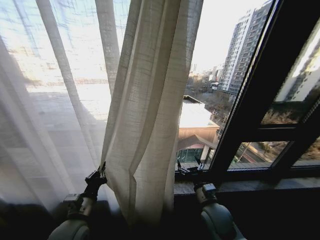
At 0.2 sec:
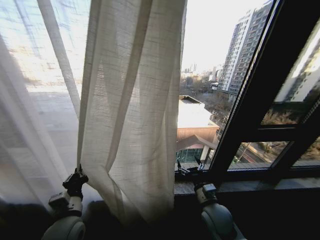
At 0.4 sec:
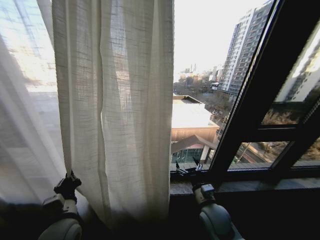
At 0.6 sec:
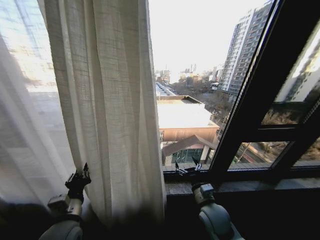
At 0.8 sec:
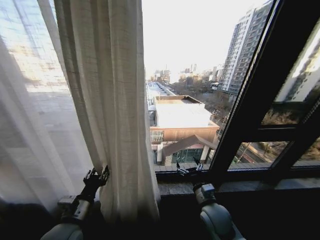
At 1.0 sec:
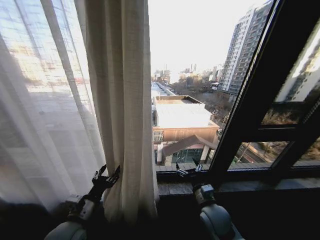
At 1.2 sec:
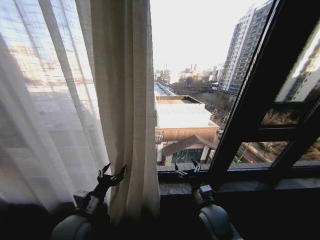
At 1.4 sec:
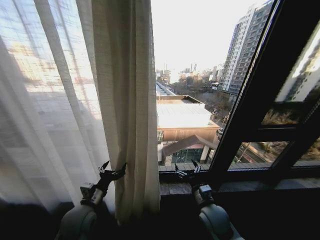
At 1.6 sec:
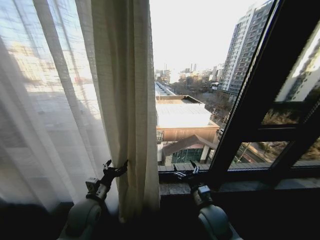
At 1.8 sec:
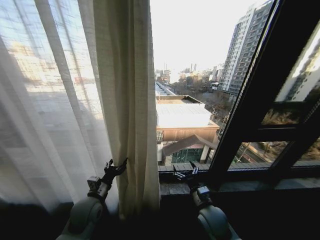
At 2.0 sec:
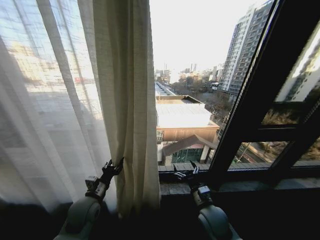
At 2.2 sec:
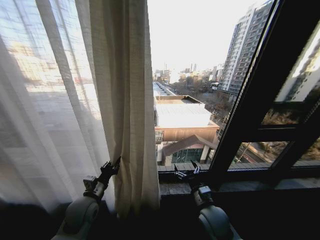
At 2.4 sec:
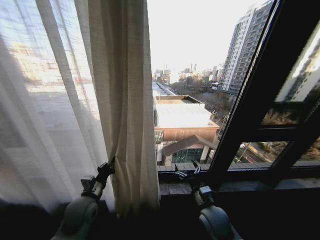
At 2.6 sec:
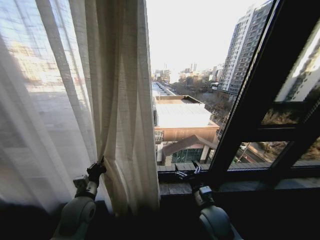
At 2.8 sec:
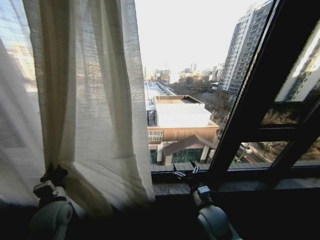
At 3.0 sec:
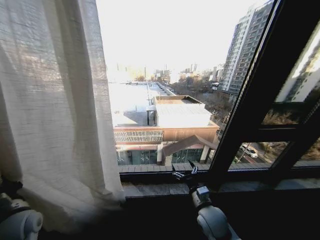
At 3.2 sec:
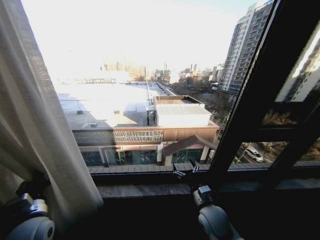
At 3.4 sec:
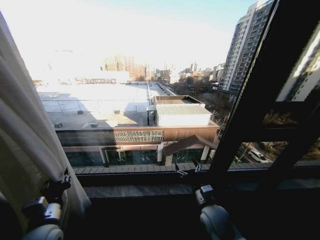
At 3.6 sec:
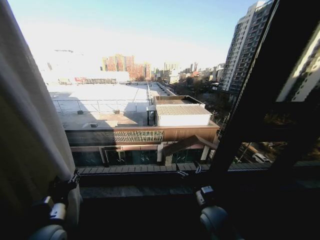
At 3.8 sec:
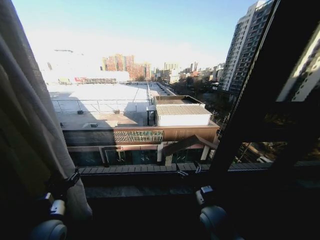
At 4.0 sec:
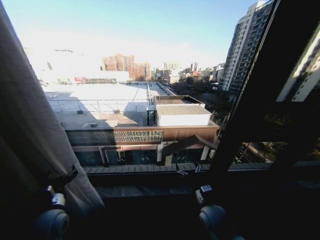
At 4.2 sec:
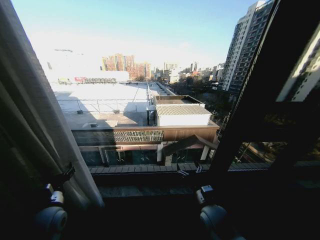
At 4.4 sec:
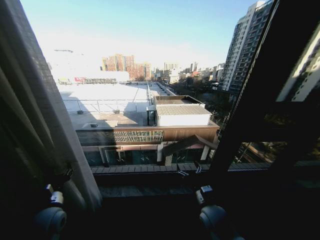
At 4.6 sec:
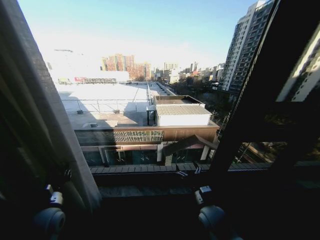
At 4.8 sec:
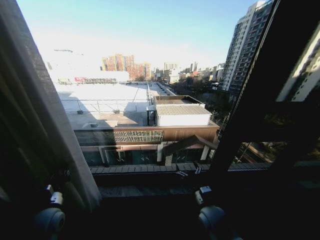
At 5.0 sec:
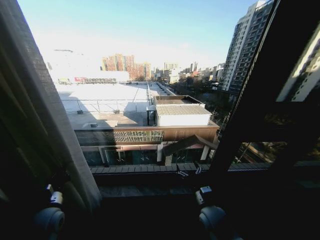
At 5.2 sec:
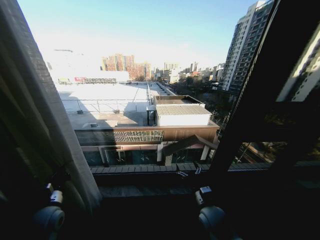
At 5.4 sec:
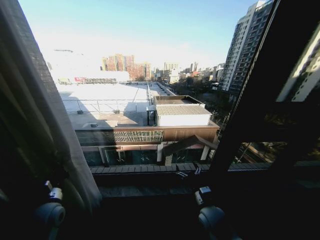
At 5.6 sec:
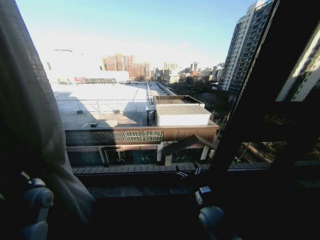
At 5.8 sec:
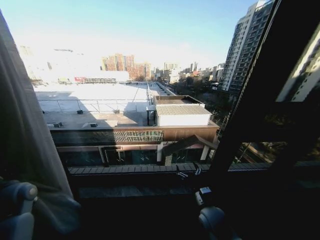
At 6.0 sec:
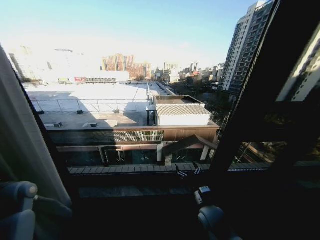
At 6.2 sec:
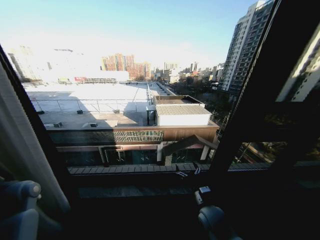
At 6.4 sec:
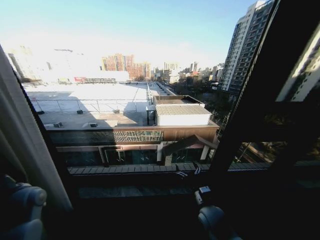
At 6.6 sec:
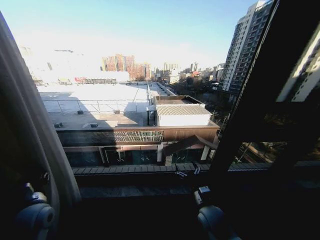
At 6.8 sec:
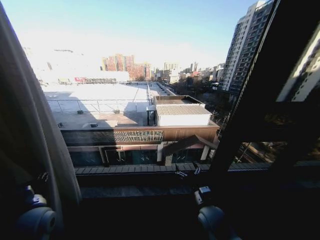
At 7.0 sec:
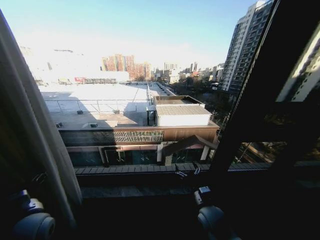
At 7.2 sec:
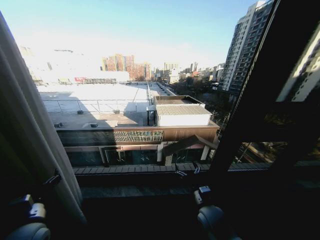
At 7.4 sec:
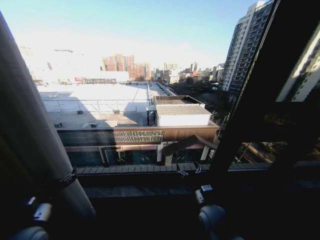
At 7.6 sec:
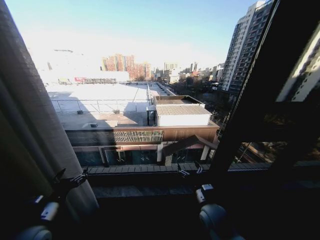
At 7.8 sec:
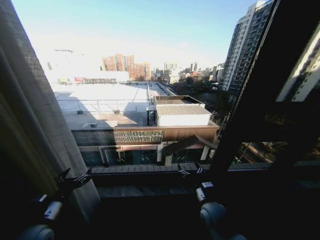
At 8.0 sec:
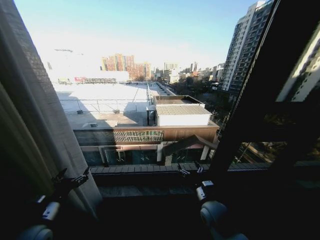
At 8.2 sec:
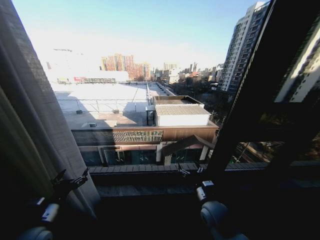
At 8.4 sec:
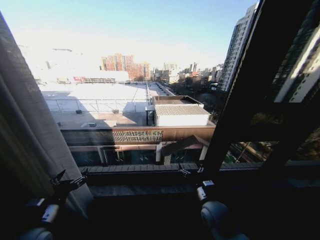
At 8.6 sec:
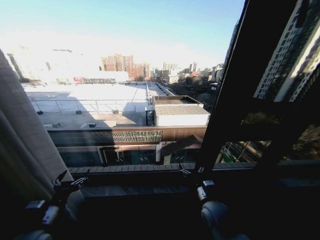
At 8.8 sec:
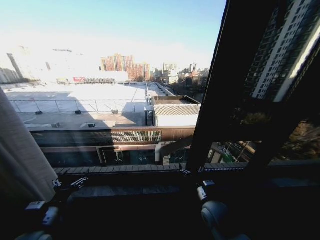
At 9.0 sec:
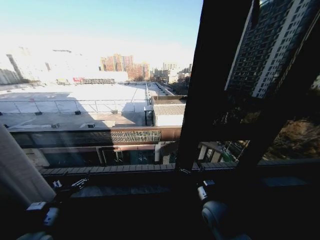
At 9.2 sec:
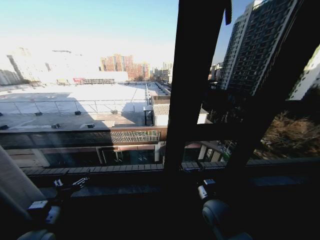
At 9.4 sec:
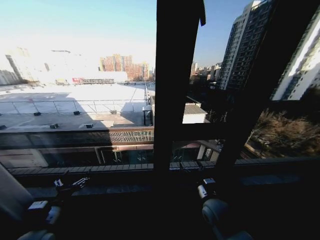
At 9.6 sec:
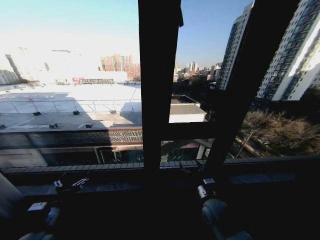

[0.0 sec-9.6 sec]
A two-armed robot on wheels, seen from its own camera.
Task of the whole recording: Open the curtains by pulling them apart, changing their state from closed to fully open.
0.0 sec to 1.6 sec: The left gripper is displaced forward by about 5 cm, and opens.
1.6 sec to 3.2 sec: The left gripper moves to the left and backward, about 15 cm, and closes up.
3.2 sec to 4.8 sec: The left gripper reaches about 10 cm to the right, then returns, and opens, then closes once more.
4.8 sec to 6.4 sec: The left gripper is displaced to the left and forward by some 10 cm.
6.4 sec to 8.0 sec: The left gripper shifts about 15 cm backward and to the right, and opens its fingers.
